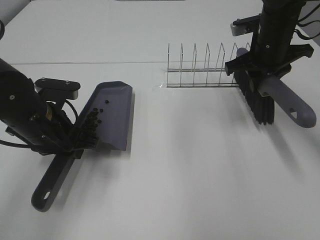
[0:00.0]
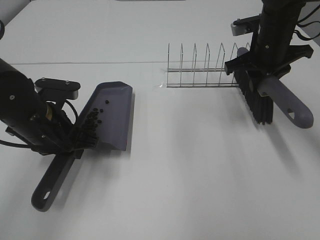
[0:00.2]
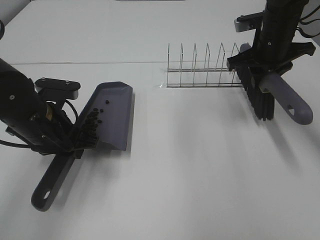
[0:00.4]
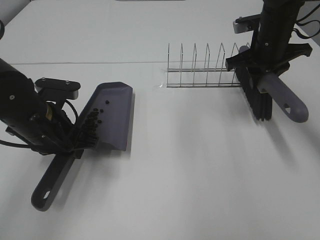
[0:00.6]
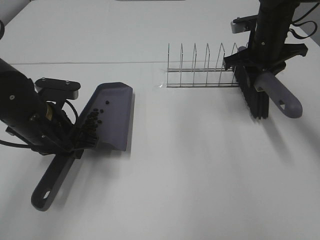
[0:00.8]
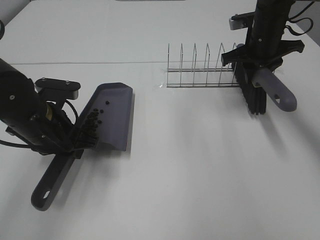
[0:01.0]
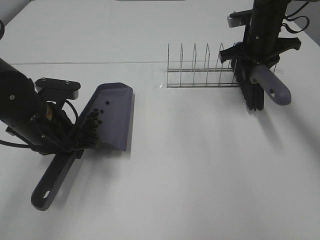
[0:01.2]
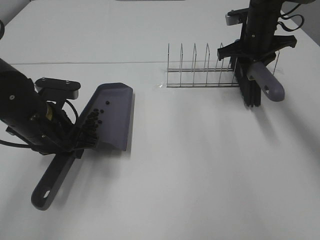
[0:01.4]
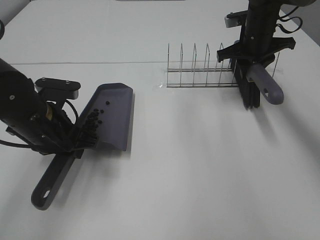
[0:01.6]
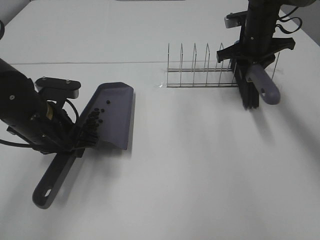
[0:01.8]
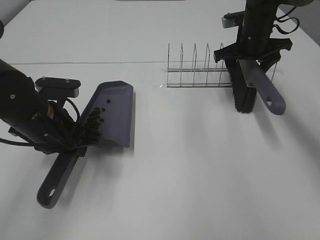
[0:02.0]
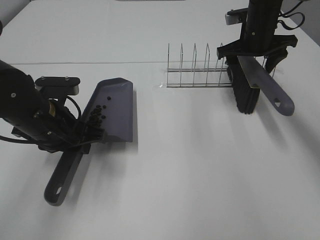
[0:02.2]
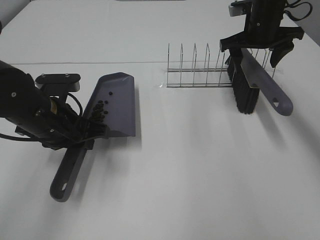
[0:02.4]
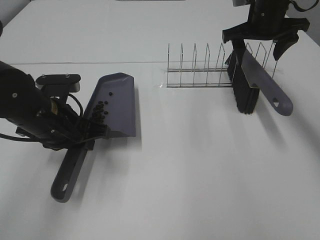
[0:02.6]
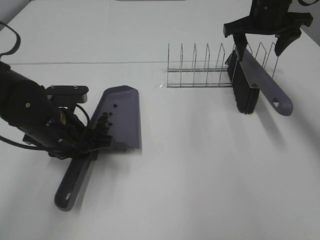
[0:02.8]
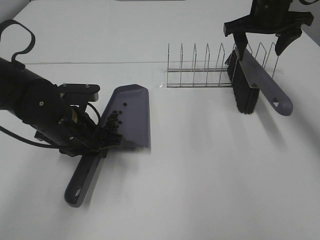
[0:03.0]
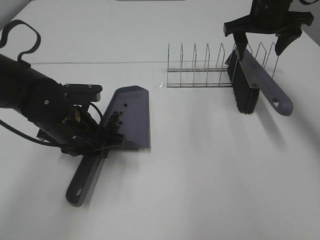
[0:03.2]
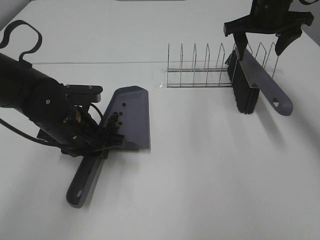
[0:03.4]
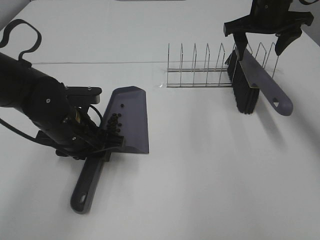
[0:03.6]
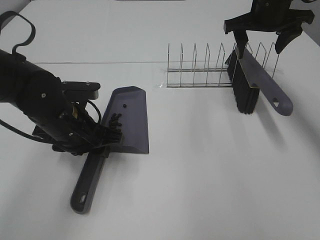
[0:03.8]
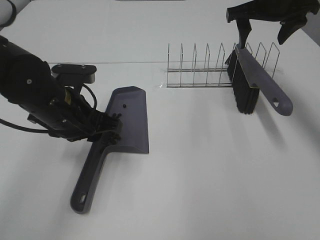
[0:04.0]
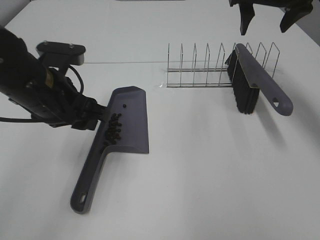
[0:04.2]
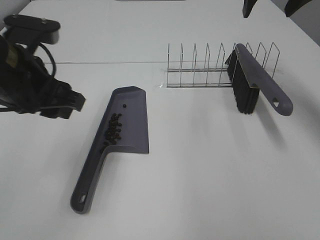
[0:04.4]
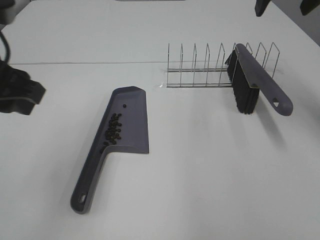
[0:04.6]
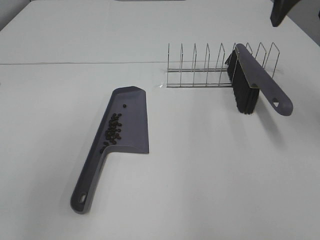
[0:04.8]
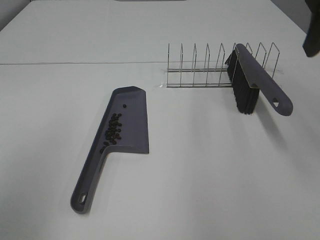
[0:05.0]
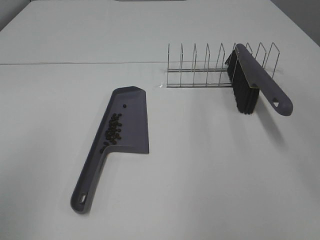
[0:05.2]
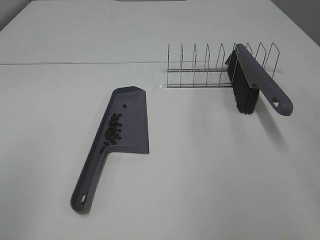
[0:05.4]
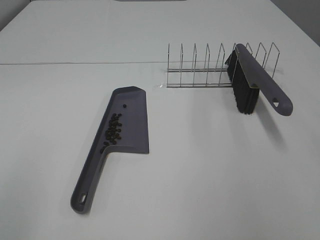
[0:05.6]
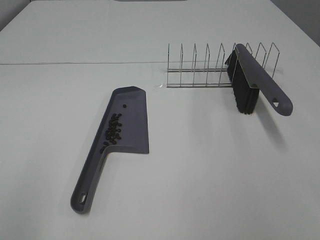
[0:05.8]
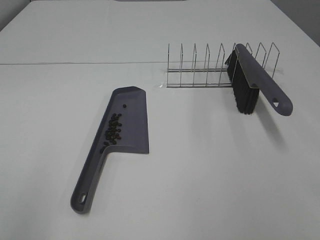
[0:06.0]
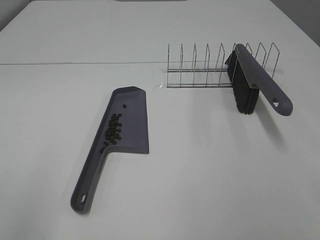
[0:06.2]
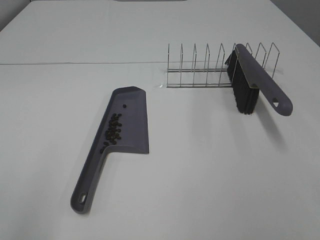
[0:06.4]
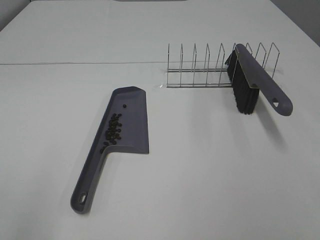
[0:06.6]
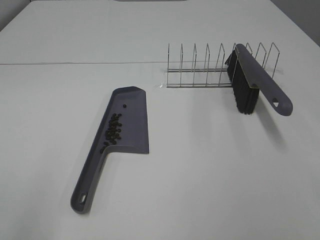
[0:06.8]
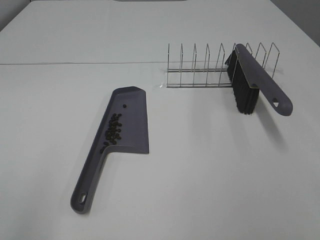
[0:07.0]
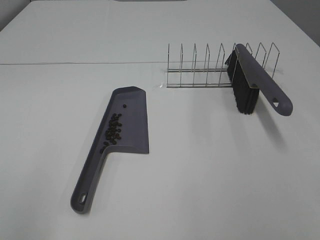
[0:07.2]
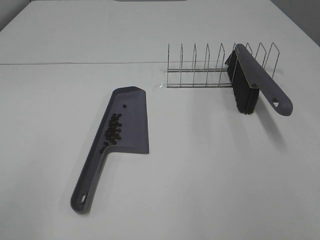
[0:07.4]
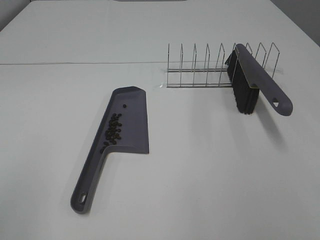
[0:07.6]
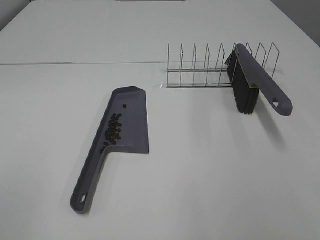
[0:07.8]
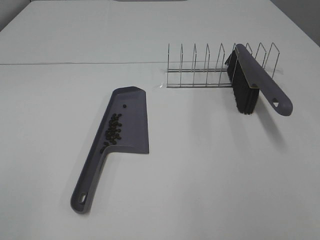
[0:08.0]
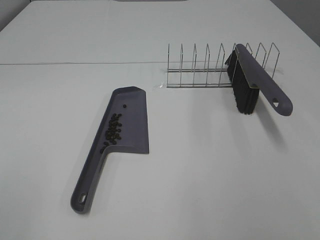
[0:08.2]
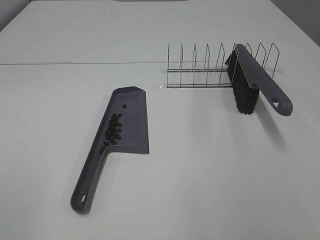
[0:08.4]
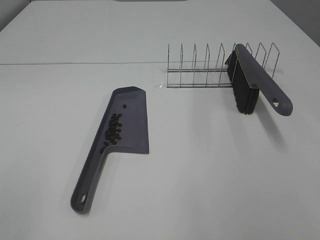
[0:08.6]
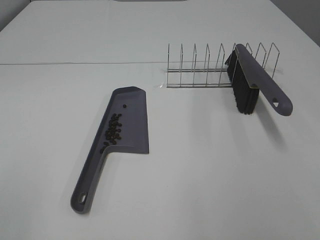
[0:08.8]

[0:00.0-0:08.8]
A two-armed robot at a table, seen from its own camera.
Task of the whole recording: Sweep Coffee Bean.
Step, 0:00.0 to 0:02.2: Right hand:place the broom on the rack.
Step, 0:02.4 to 0:04.0: Left hand:place the dustpan on the table.
0:00.0 to 0:01.4: The right gripper is displaced forward by some 5 cm.
0:01.4 to 0:03.0: The right gripper is displaced upward by some 5 cm, and opens.
0:03.0 to 0:04.4: Both grippers move upward, some 10 cm. The left gripper opens up.
0:04.4 to 0:05.8: The left gripper heads backward and to the left, covering about 25 cm; the right gripper moves backward, roughly 35 cm.

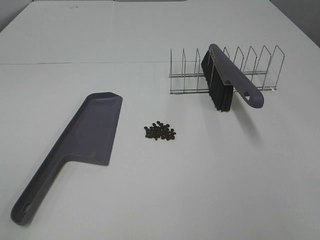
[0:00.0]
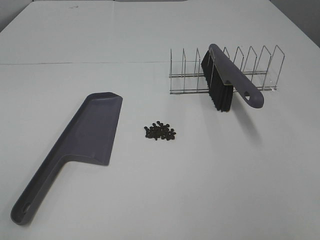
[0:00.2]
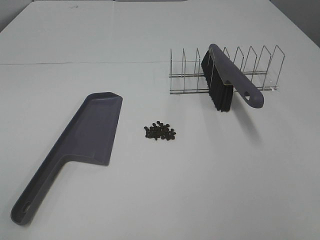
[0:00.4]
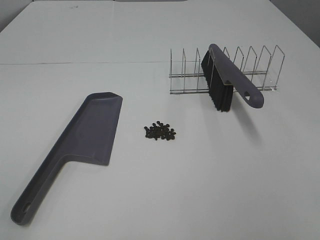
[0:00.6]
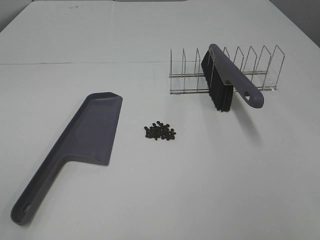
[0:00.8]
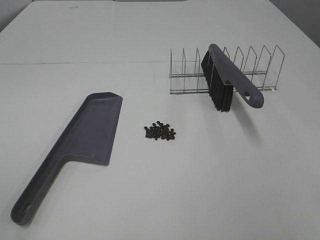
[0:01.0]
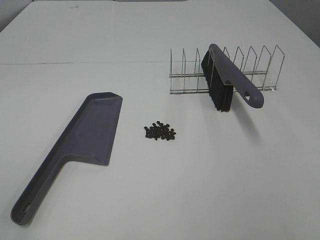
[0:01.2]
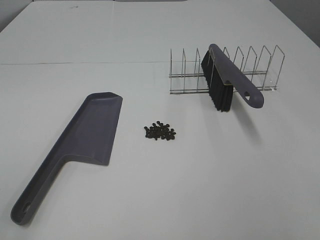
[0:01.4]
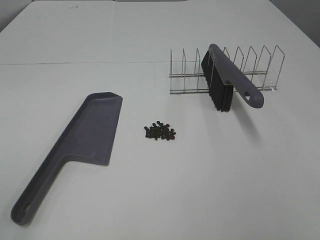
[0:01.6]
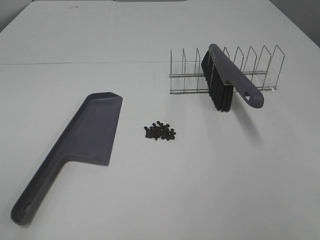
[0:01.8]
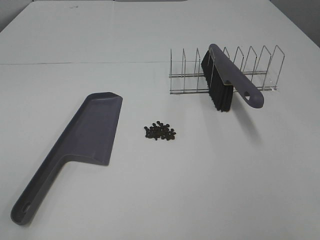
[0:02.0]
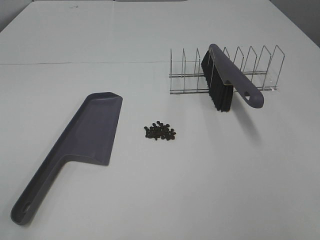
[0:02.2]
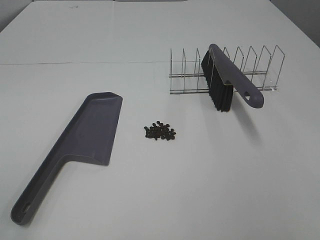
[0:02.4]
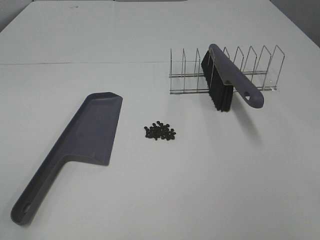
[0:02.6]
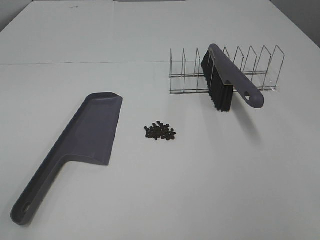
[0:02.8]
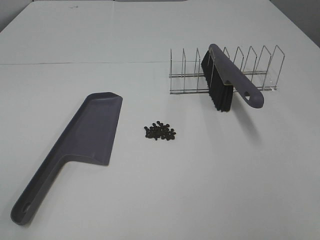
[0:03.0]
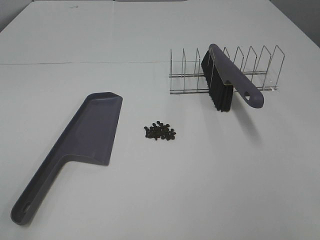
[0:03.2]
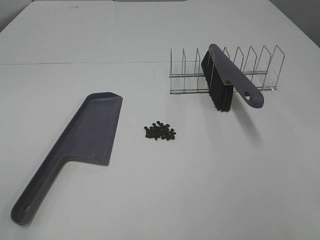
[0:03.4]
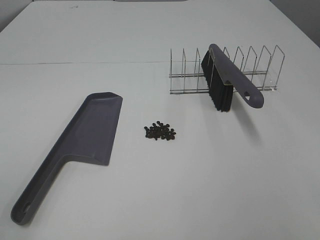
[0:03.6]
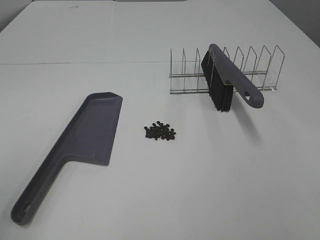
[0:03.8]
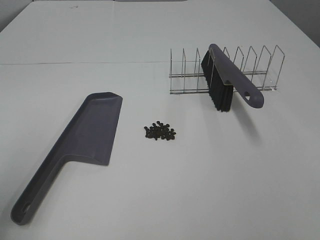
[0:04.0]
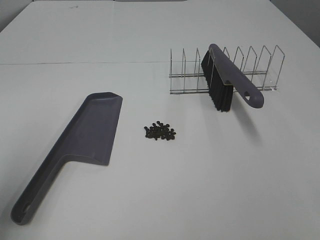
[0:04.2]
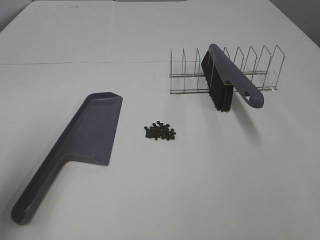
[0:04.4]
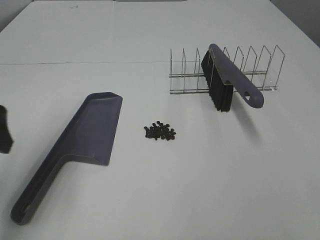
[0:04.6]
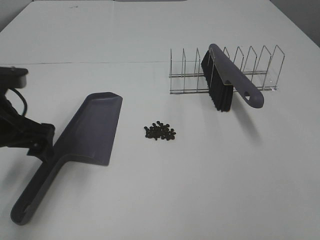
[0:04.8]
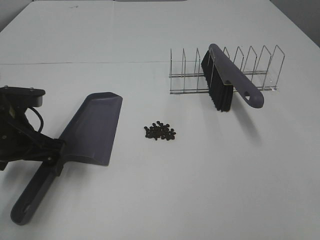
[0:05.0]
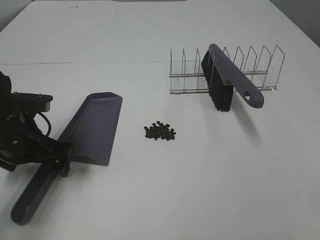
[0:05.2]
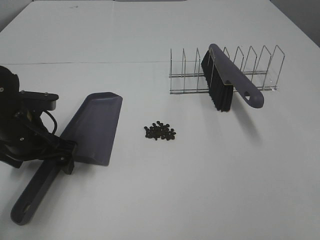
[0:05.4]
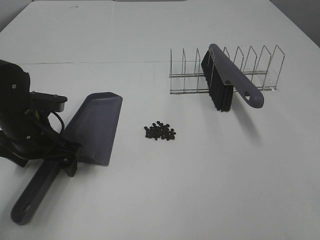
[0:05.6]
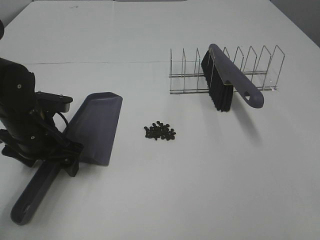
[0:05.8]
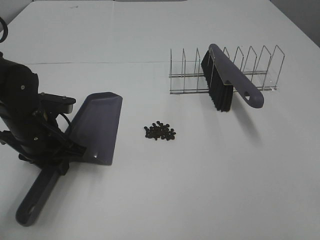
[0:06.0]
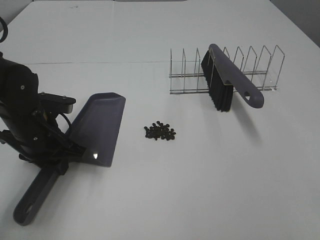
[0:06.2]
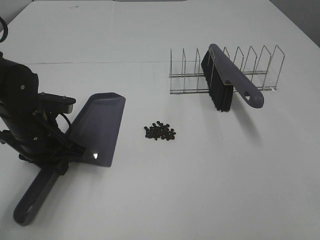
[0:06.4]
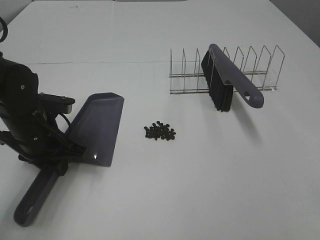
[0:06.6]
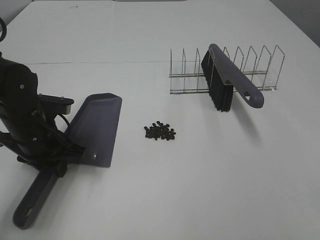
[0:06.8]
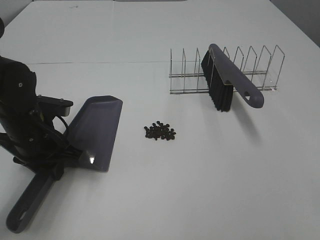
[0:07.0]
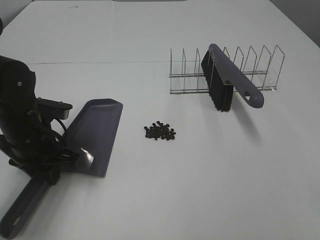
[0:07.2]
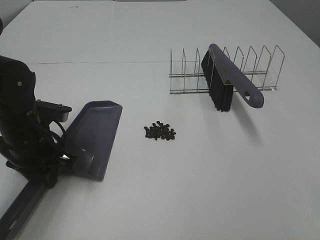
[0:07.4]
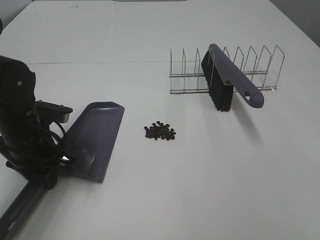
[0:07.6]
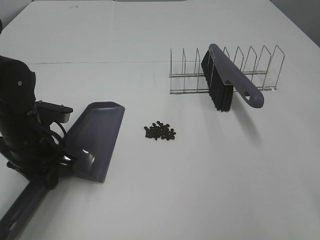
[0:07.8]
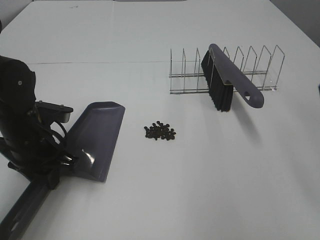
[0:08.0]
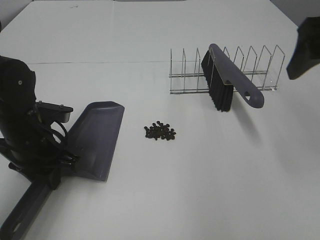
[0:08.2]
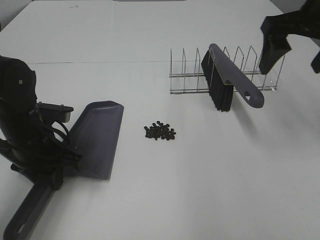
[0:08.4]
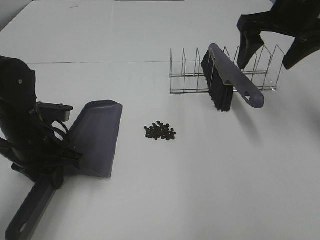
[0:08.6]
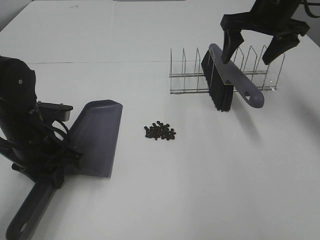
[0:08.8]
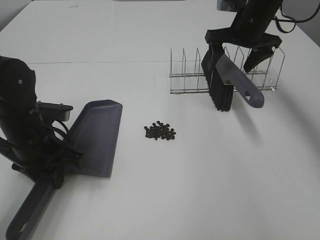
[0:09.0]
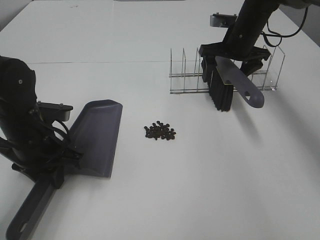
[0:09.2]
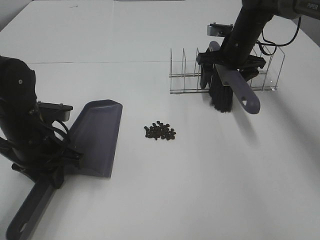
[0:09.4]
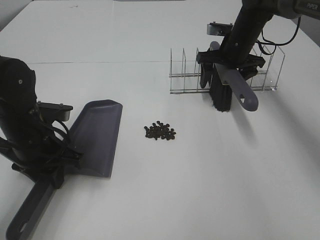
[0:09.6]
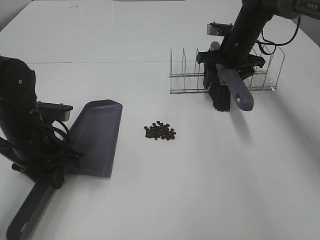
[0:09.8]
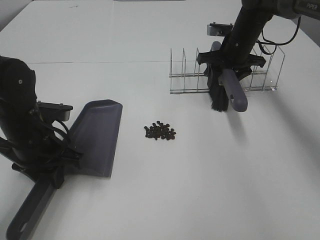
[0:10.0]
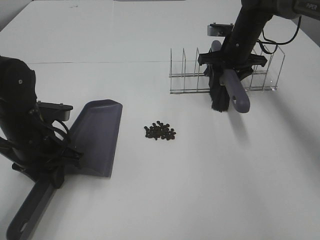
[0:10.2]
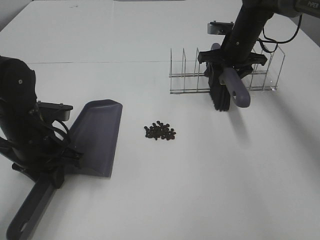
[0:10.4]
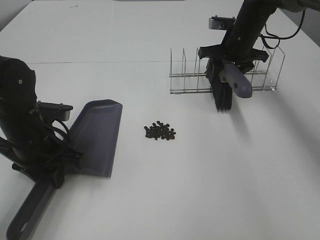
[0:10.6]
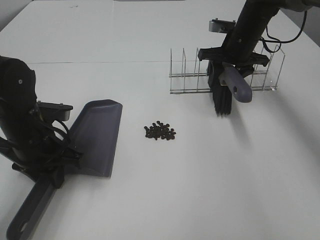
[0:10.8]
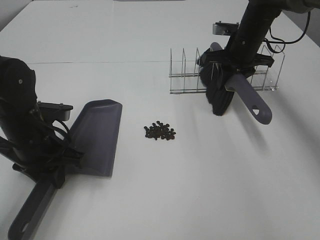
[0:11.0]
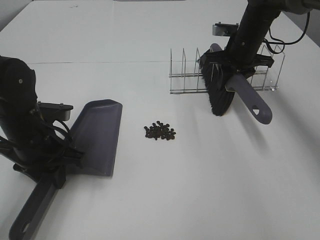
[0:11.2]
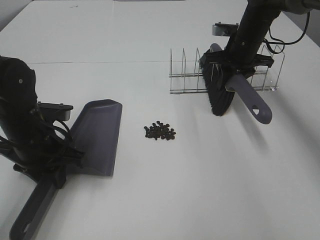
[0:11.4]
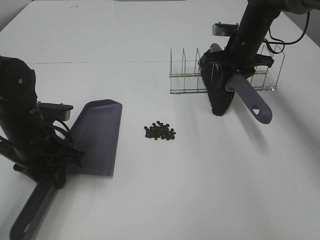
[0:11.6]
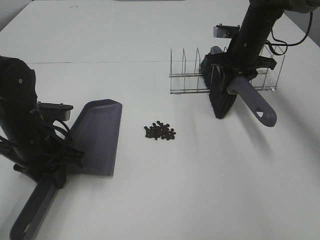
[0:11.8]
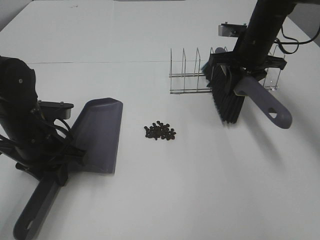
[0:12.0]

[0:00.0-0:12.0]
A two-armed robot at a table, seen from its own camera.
Task of the whole recording: Sweep Coffee Bean.
Step, 0:00.0 to 0:06.0: Left hand: grab the dustpan.
Step, 0:07.4 to 0:09.8: Right hand:grab the broom.
0:00.0 to 0:03.0: Both grippers stay put.
0:03.0 to 0:04.4: The left gripper moves forward, roughly 15 cm.
0:04.4 to 0:06.0: The left gripper is displaced downward, forward and to the right by approximately 25 cm, and closes.
0:06.0 to 0:07.6: There are only small adjustments of the grippers.
0:07.6 to 0:09.0: The right gripper is displaced forward by roughly 50 cm.
0:09.0 to 0:10.4: The right gripper travels downward by roughly 5 cm, and closes.
0:10.4 to 0:12.0: The right gripper goes roughly 5 cm backward, and closes.

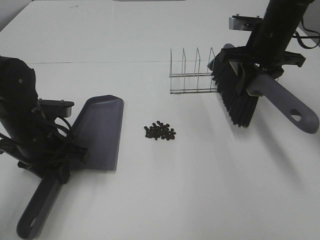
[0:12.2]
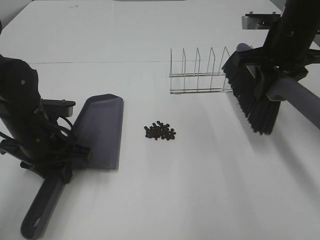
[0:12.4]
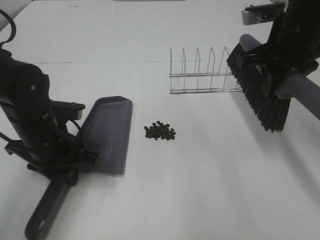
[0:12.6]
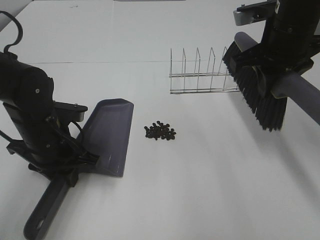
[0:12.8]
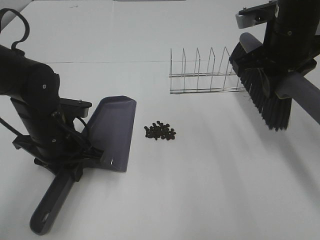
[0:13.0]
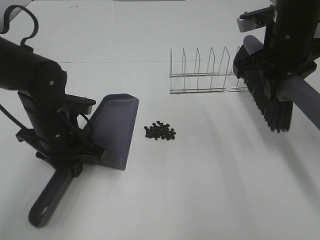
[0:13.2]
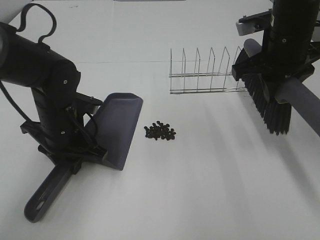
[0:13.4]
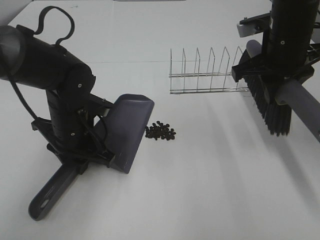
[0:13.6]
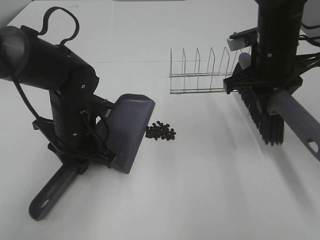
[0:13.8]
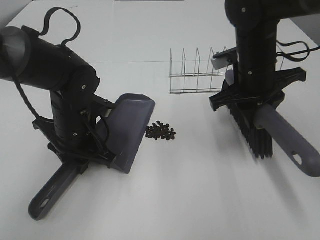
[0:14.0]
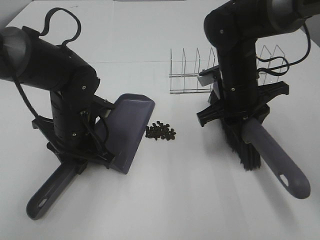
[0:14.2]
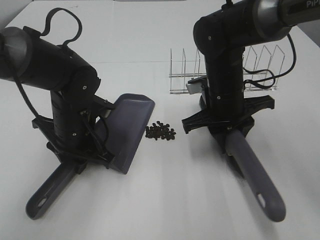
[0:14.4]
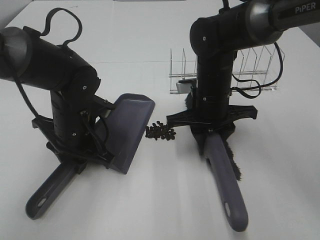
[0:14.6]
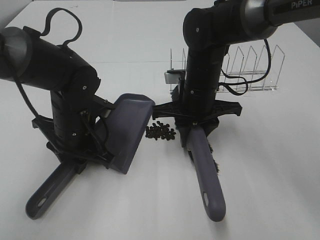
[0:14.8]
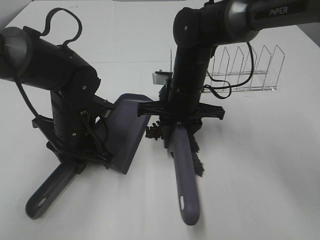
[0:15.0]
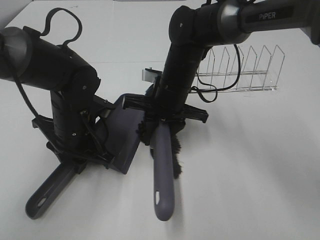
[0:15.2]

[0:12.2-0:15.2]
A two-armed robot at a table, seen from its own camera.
Task of the whole recording: Sweep Coffee Bean.
0:12.2 to 0:13.8: The left gripper shifts some 5 cm to the right, while the right gripper is displaced backward by about 5 cm.
0:13.8 to 0:15.2: The right gripper heads to the left and downward, covering approximately 15 cm.
